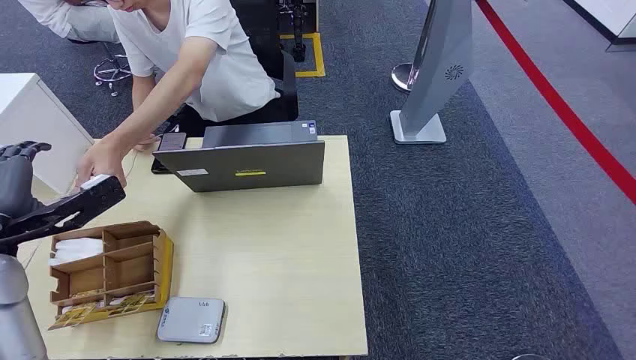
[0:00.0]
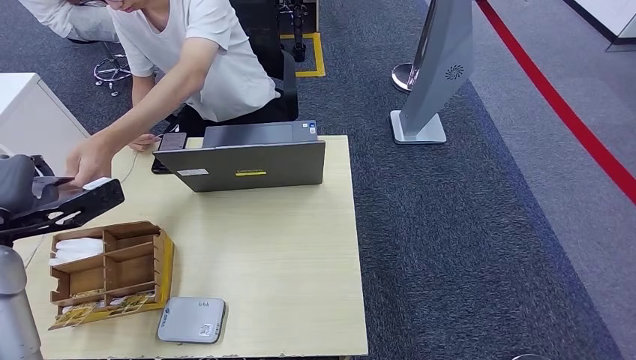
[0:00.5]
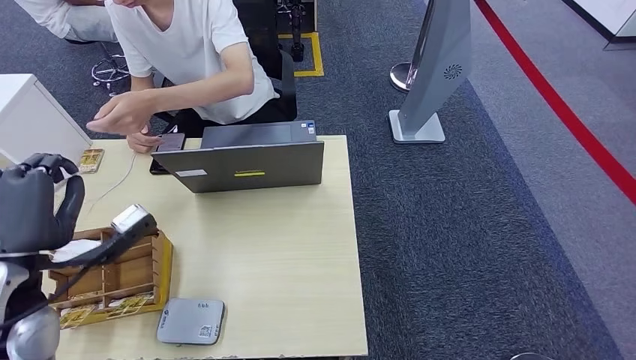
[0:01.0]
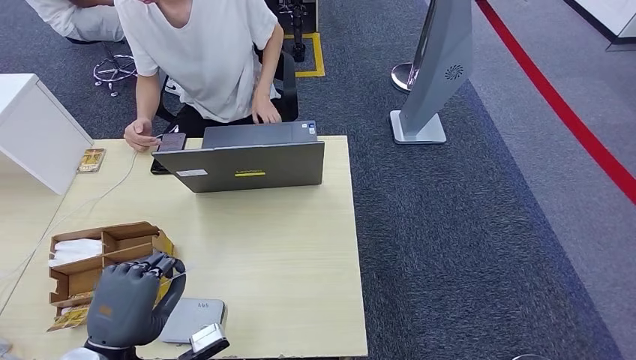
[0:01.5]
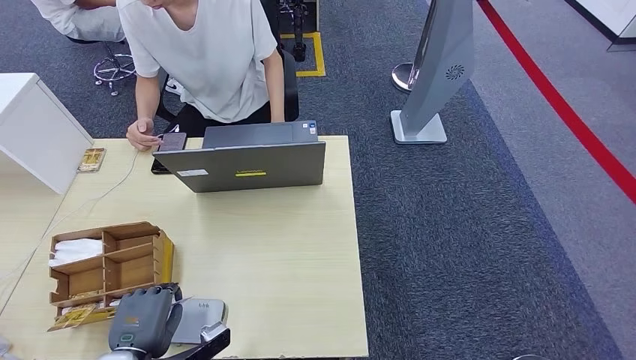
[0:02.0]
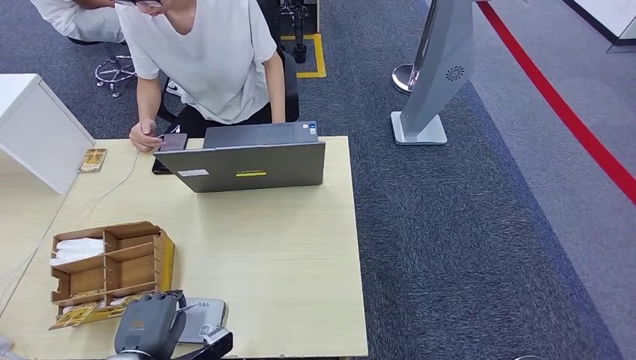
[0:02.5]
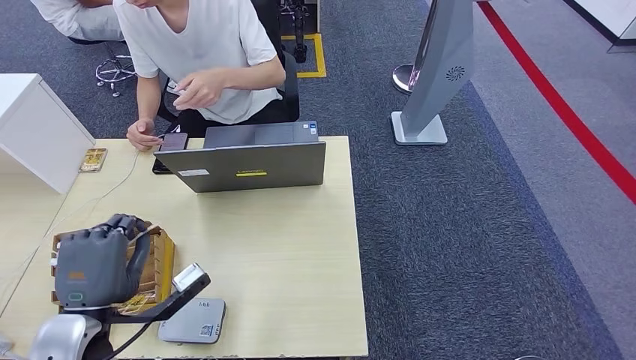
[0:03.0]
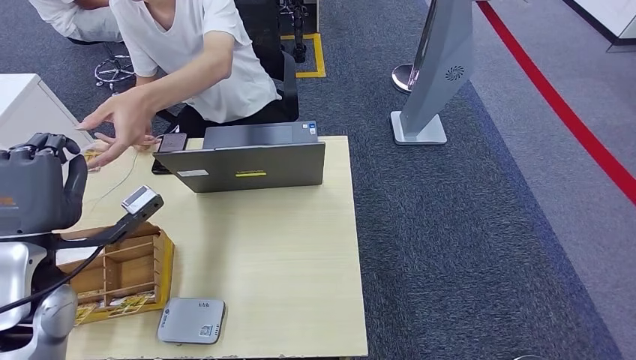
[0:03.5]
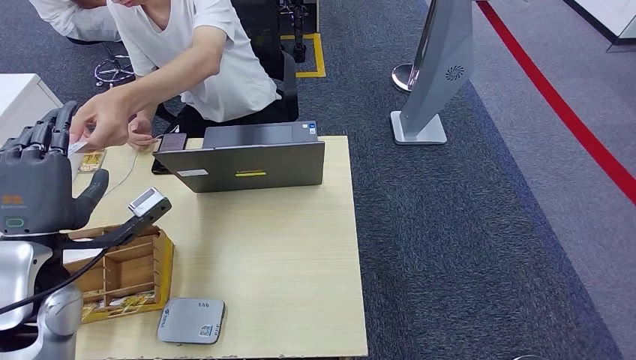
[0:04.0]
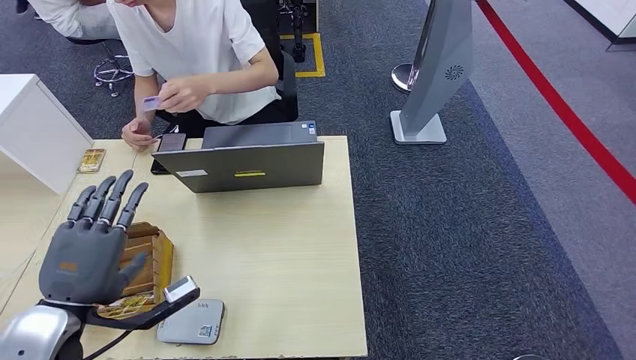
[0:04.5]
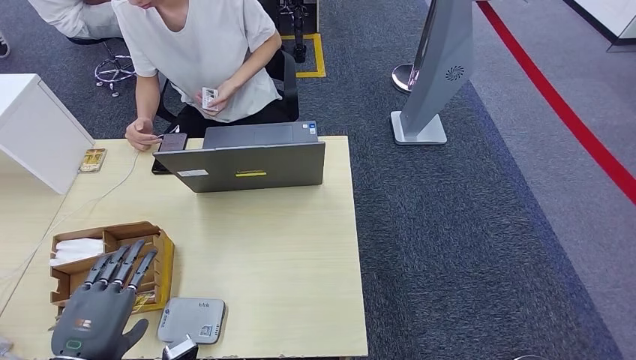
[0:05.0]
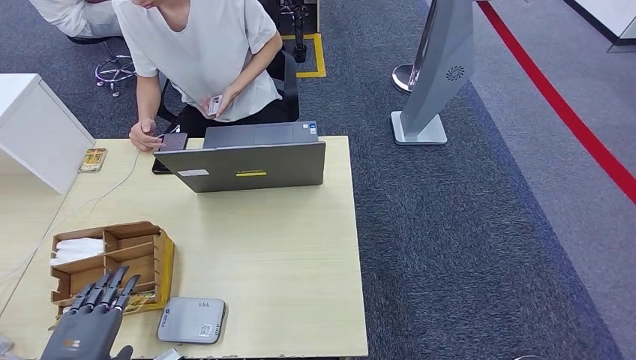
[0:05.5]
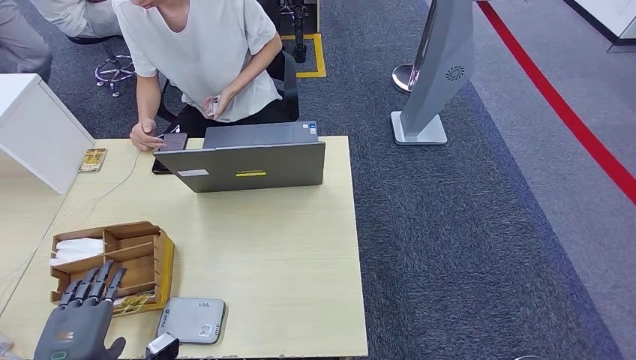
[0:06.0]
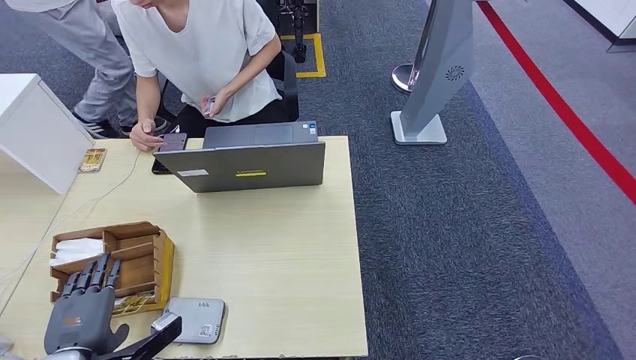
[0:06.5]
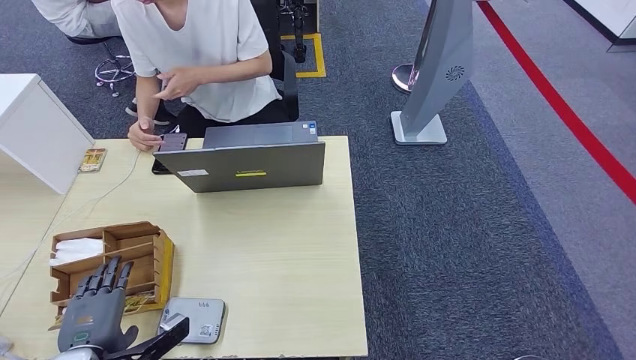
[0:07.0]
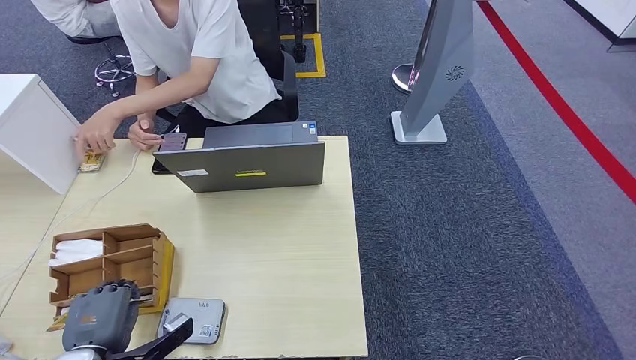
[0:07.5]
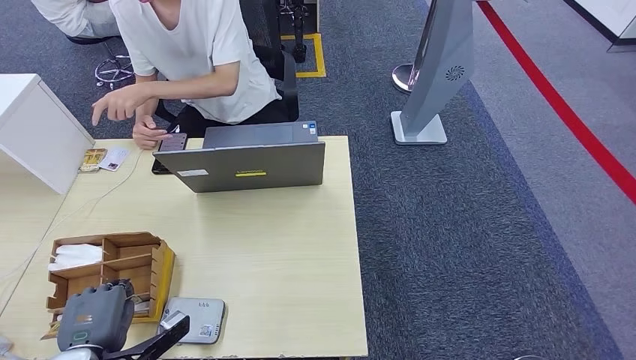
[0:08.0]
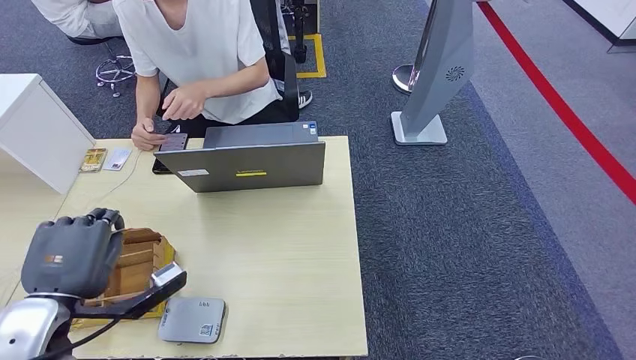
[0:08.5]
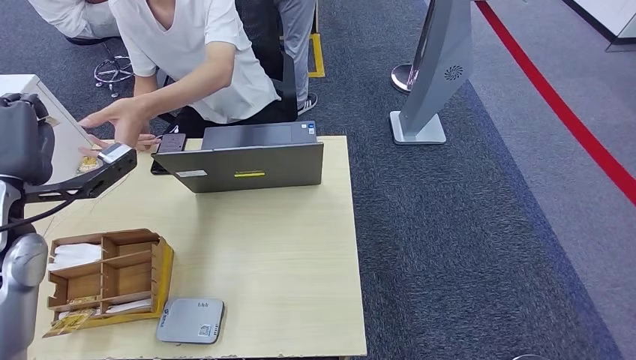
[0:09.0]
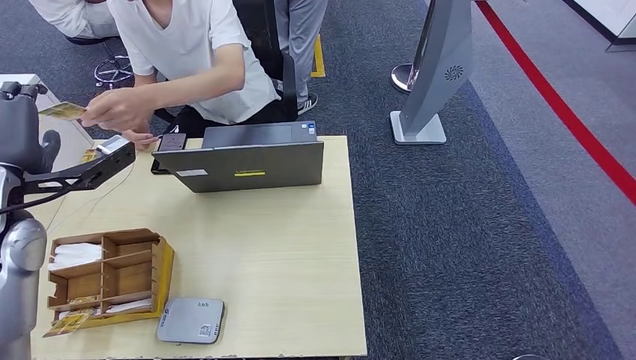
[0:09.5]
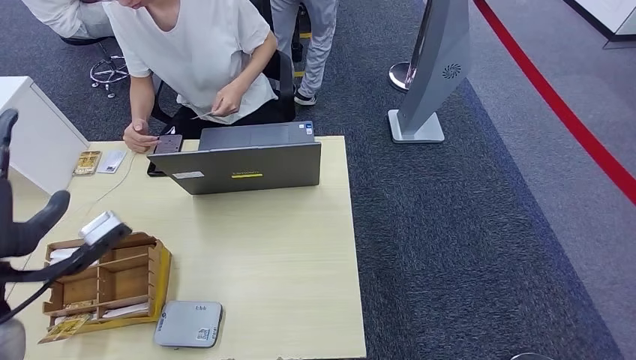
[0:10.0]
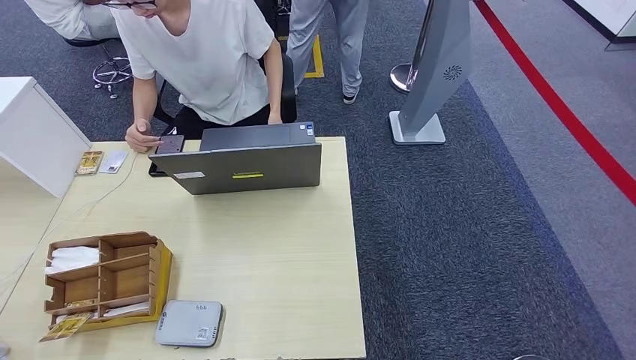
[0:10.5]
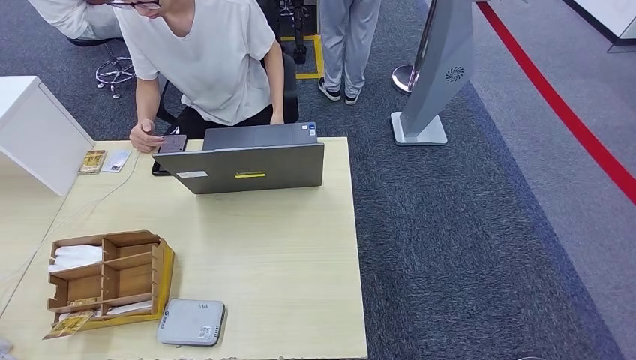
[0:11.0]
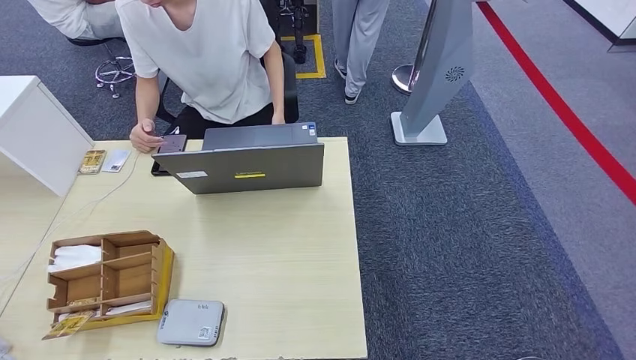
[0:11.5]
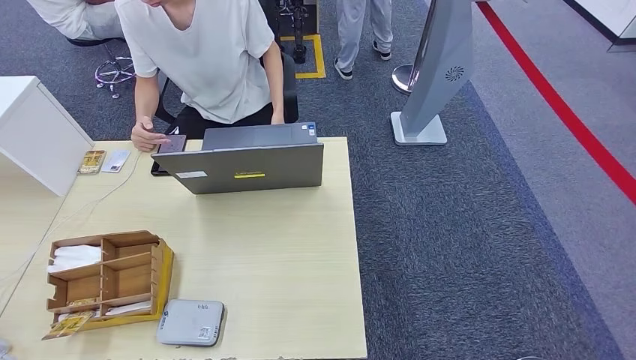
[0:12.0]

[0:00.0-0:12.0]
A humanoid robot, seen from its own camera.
Step, 0:00.0 to 0:00.5: Take the ID card from the person's hand.
Step, 0:01.0 to 0:02.5: Place the ID card on the card reader.
Step, 0:03.0 to 0:05.0: Hand the ID card to the person.
Step, 0:05.5 to 0:08.0: Pick up the room key from the key card box.
Step, 0:08.5 to 0:12.0: Hand the room key to the person.
0:02.0 to 0:04.0: The left hand heads upward and forward, covering approximately 20 cm.
0:06.0 to 0:08.0: The hands stay close to where they were, moving slightly.
0:08.0 to 0:10.0: The left hand heads upward and forward, covering approximately 20 cm.

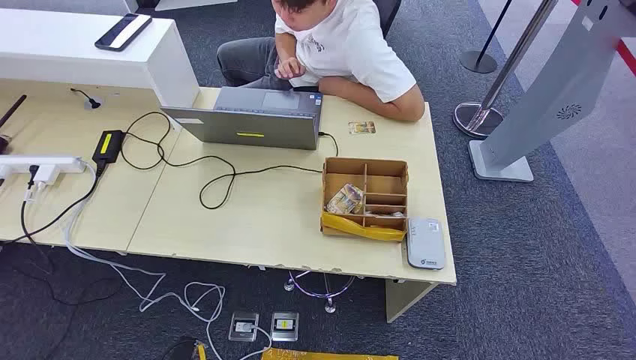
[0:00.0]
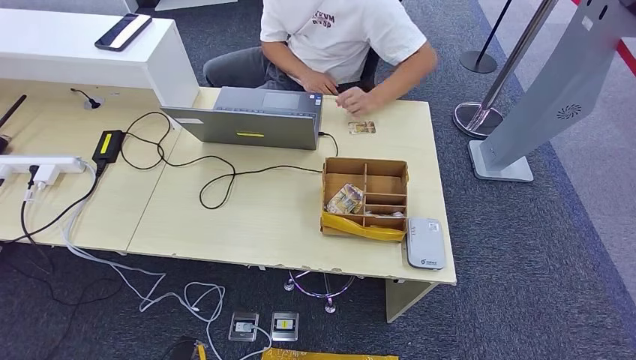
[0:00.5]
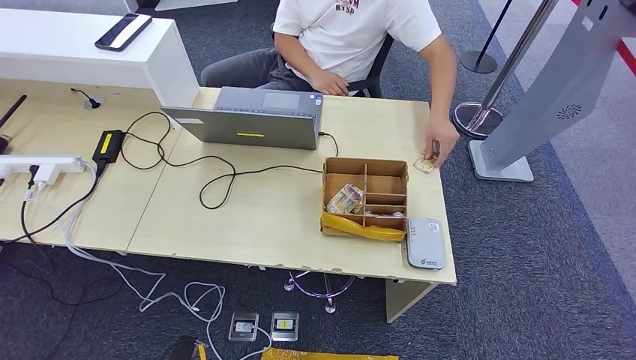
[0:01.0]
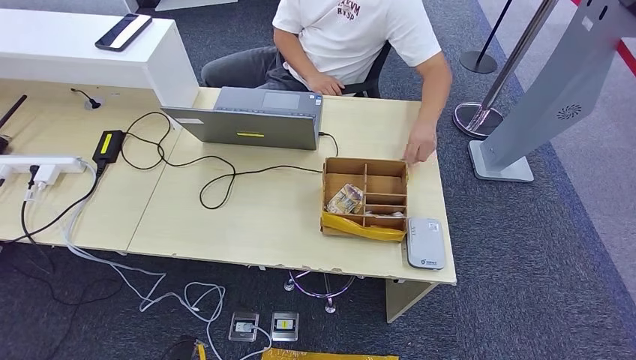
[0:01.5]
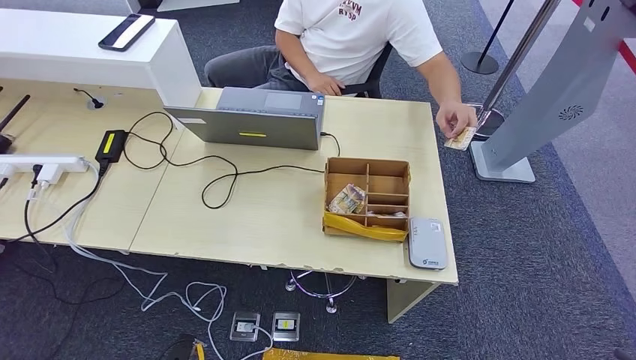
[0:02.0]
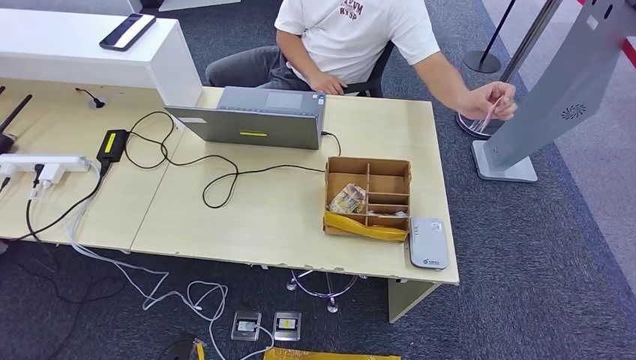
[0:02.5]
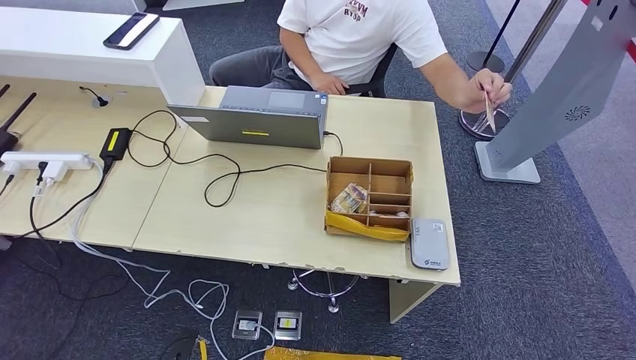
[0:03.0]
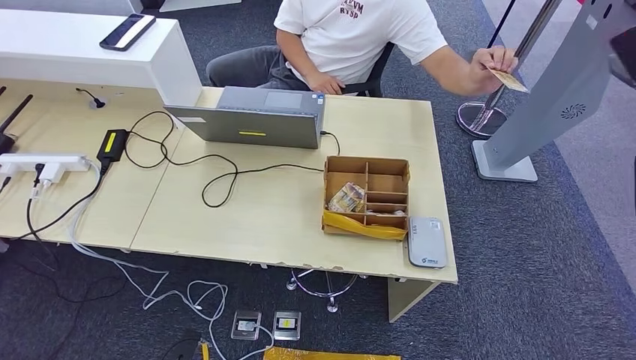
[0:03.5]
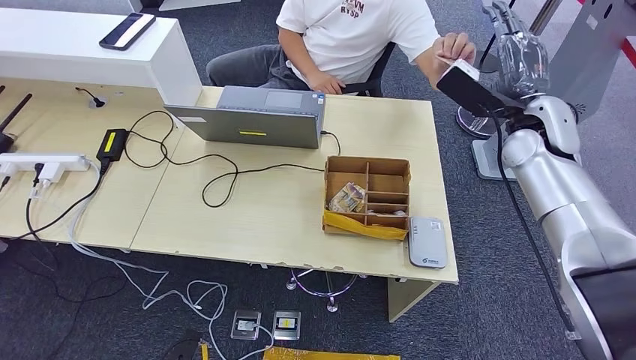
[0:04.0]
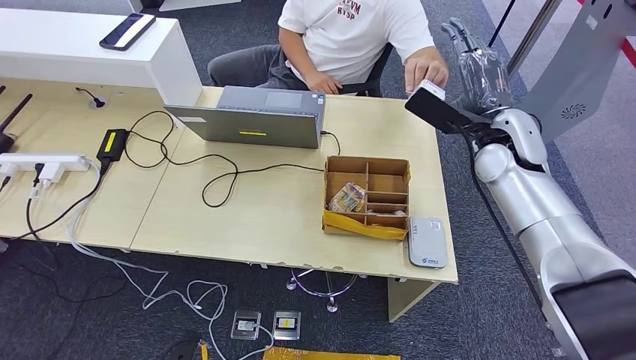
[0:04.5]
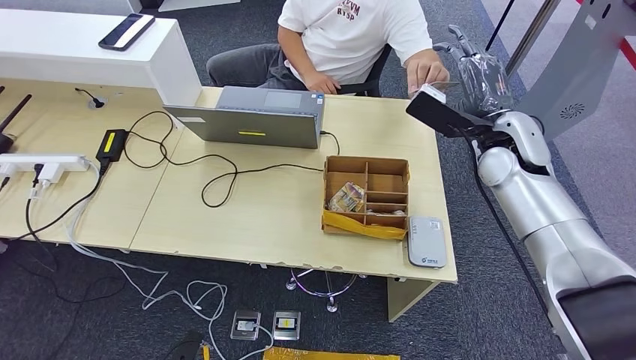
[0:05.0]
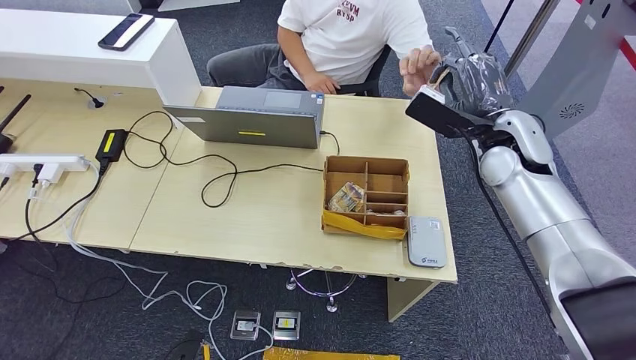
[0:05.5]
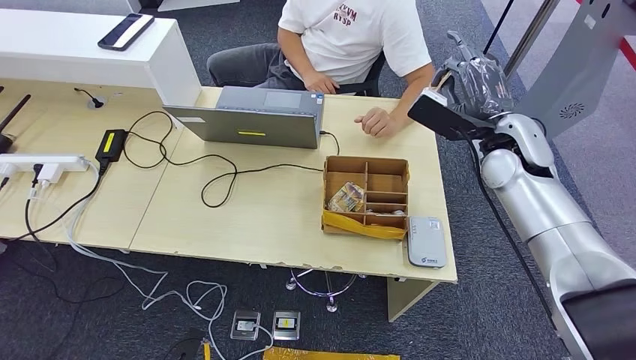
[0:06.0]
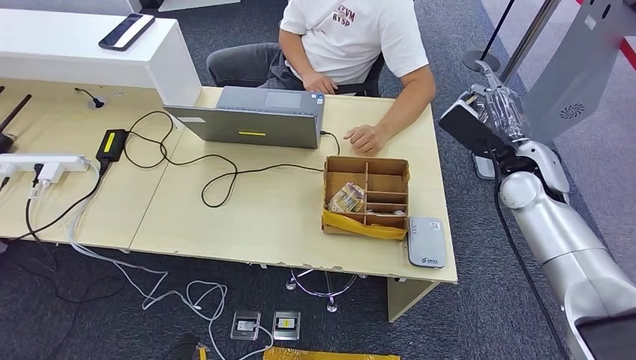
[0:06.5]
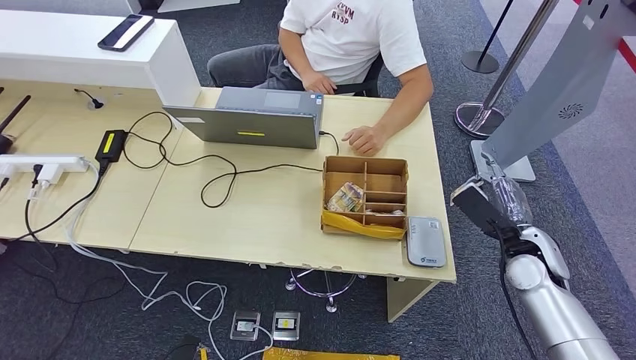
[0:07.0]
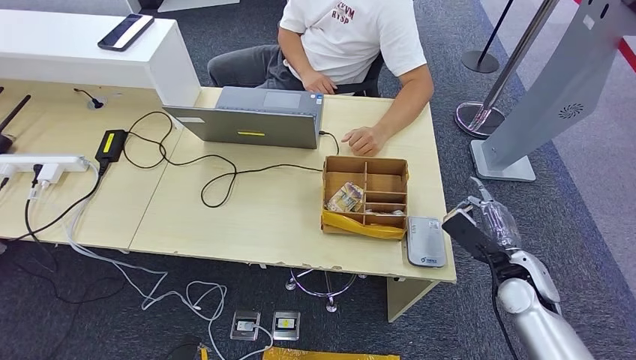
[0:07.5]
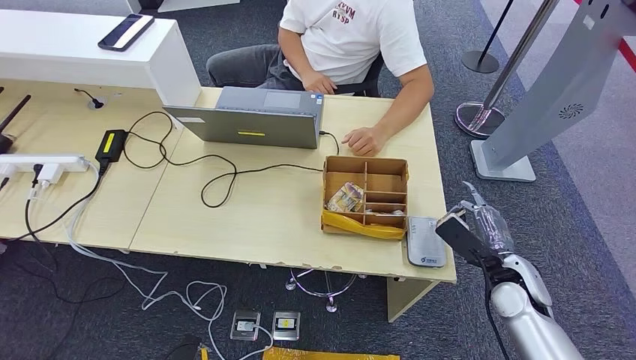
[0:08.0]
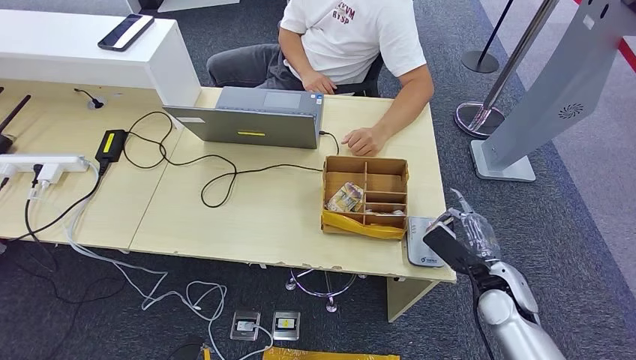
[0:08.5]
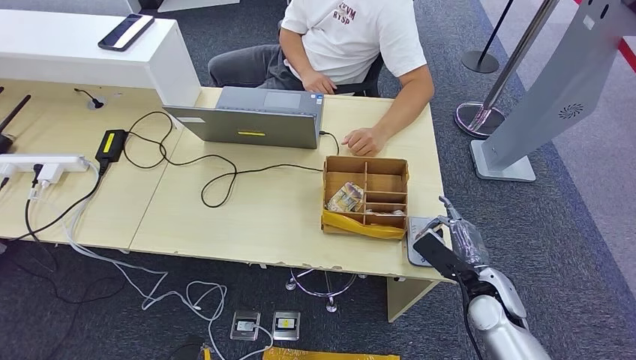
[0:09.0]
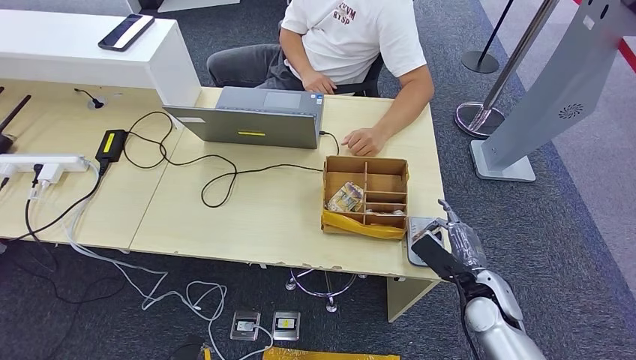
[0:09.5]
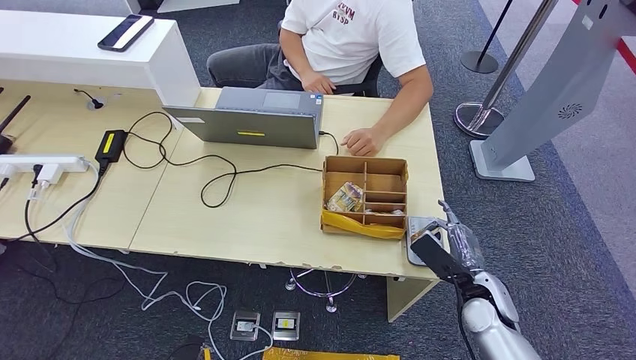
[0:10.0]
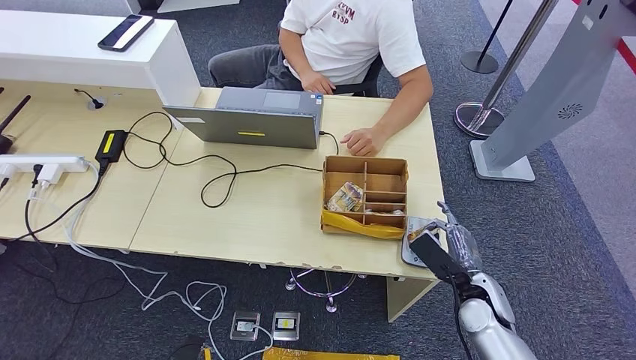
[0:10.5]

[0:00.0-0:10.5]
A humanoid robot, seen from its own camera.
Step, 0:00.0 to 0:06.0: Take the ID card from the person's hand.
Step, 0:06.5 to 0:08.5: Place the ID card on the card reader.
0:02.0 to 0:04.0: The right hand is displaced forward, to the left and upward by approximately 50 cm.
0:04.0 to 0:06.5: The right hand goes some 5 cm downward.
0:06.5 to 0:08.5: The right hand goes about 20 cm downward and backward.
0:08.5 to 0:10.5: There are only small adjustments of the hands.
